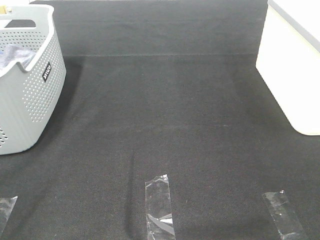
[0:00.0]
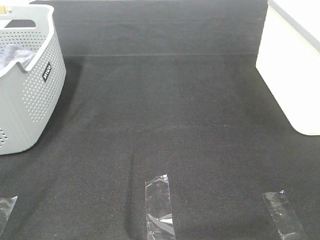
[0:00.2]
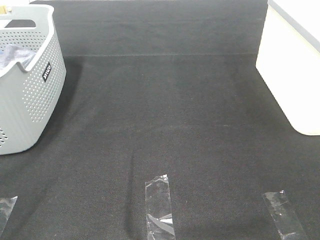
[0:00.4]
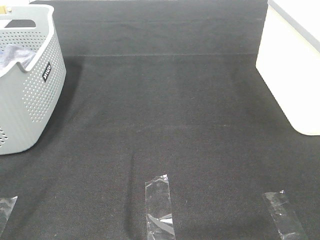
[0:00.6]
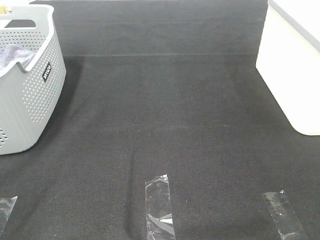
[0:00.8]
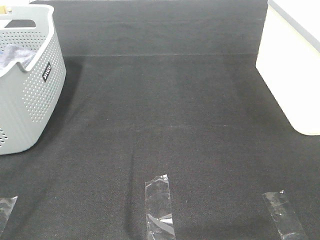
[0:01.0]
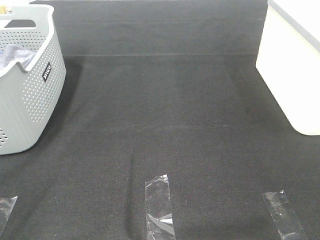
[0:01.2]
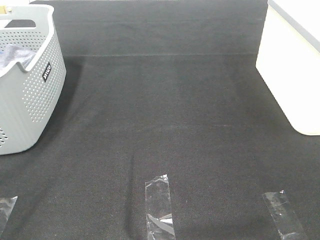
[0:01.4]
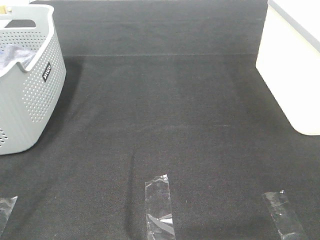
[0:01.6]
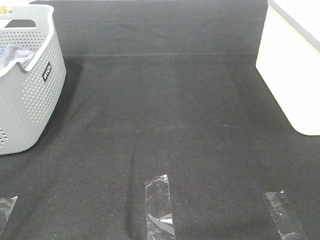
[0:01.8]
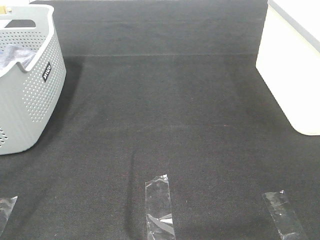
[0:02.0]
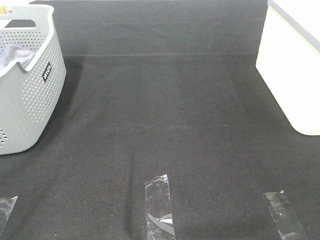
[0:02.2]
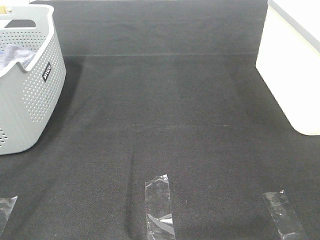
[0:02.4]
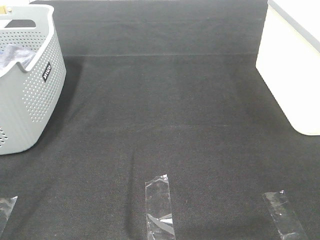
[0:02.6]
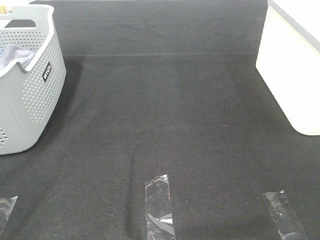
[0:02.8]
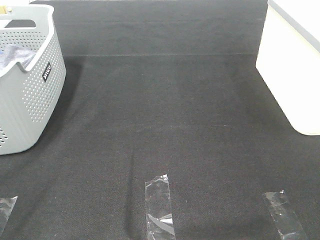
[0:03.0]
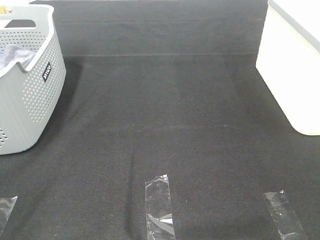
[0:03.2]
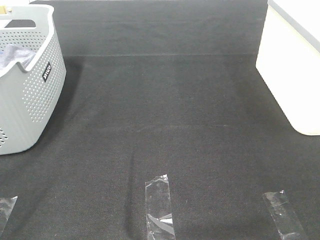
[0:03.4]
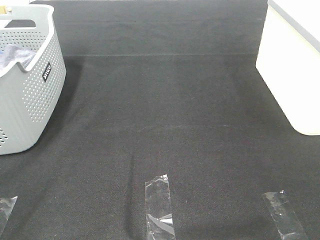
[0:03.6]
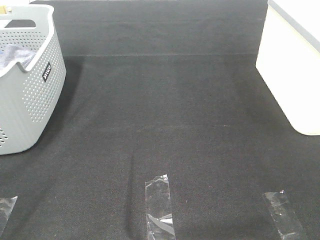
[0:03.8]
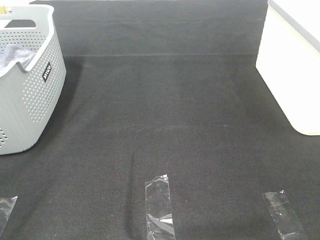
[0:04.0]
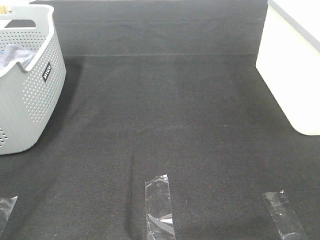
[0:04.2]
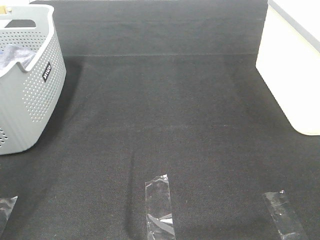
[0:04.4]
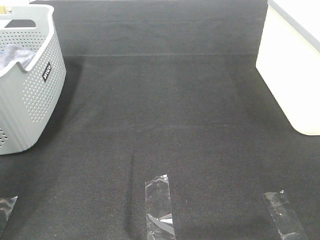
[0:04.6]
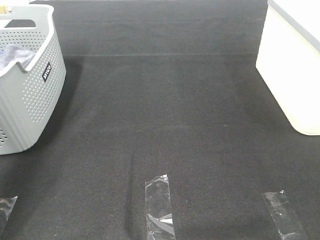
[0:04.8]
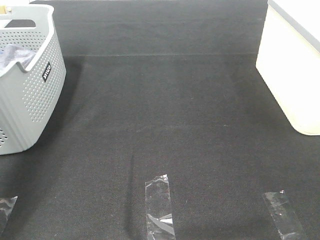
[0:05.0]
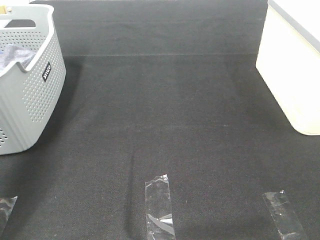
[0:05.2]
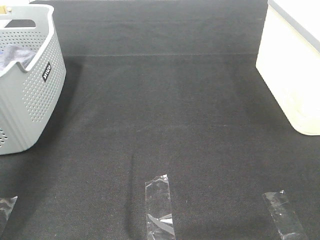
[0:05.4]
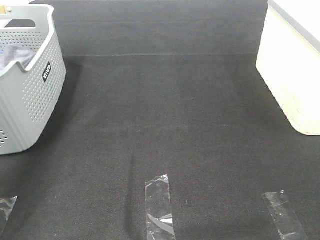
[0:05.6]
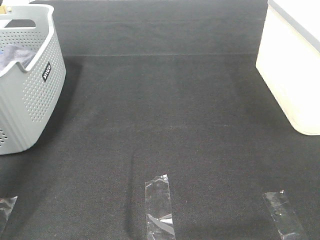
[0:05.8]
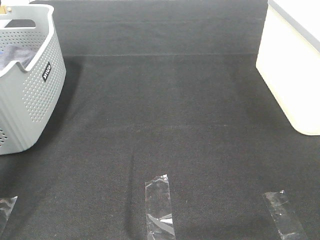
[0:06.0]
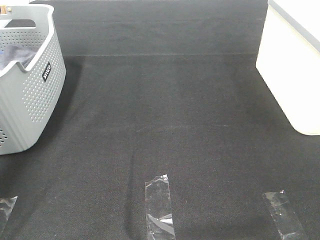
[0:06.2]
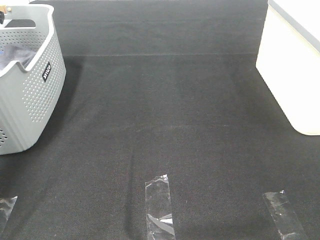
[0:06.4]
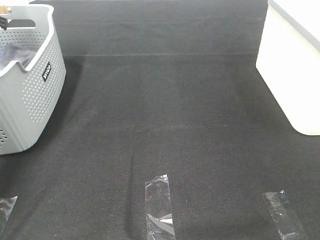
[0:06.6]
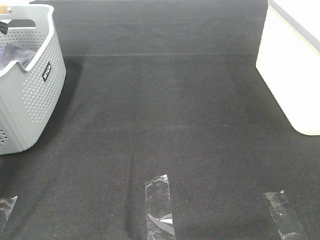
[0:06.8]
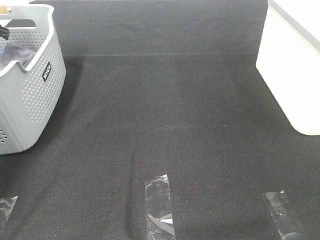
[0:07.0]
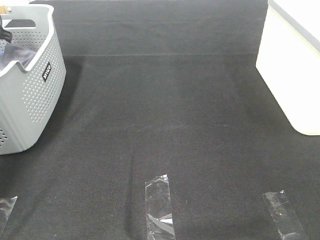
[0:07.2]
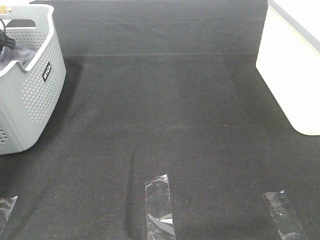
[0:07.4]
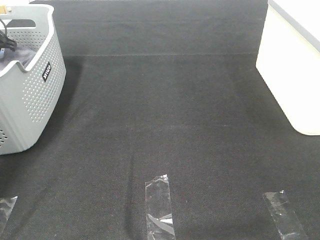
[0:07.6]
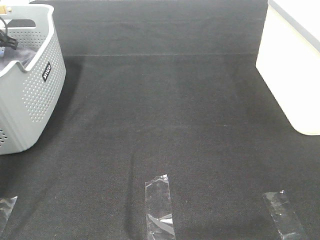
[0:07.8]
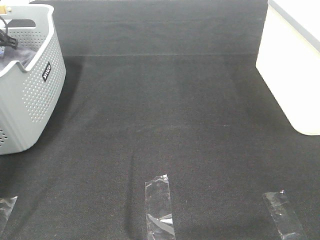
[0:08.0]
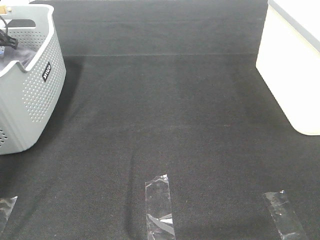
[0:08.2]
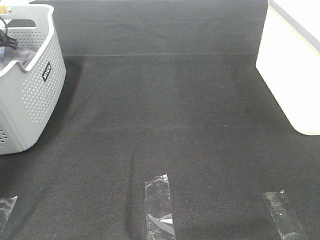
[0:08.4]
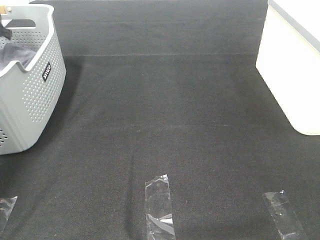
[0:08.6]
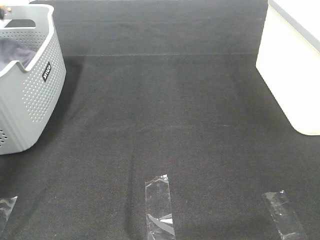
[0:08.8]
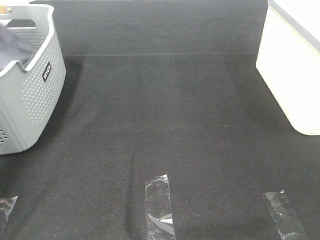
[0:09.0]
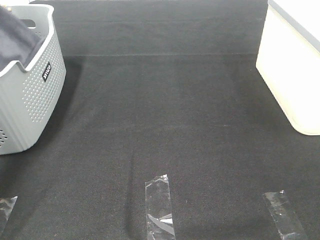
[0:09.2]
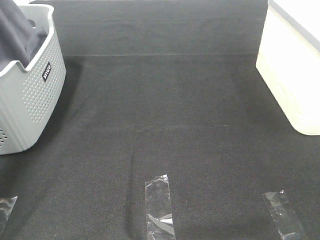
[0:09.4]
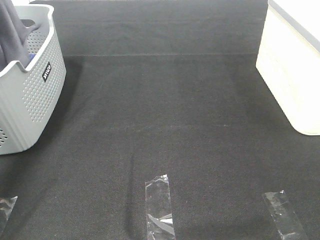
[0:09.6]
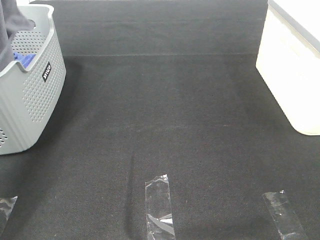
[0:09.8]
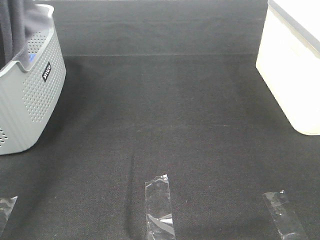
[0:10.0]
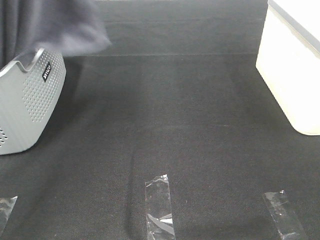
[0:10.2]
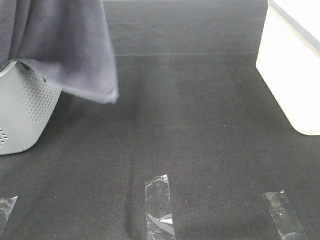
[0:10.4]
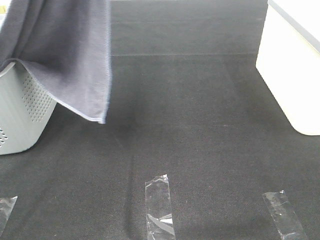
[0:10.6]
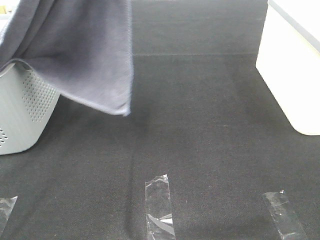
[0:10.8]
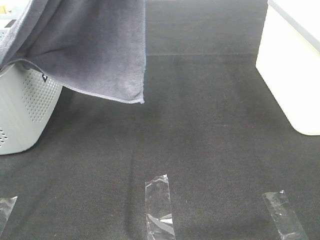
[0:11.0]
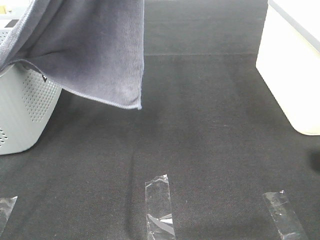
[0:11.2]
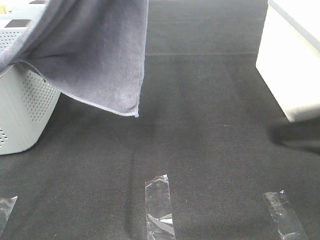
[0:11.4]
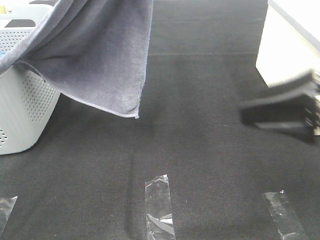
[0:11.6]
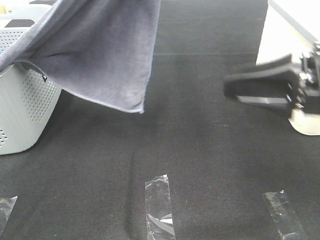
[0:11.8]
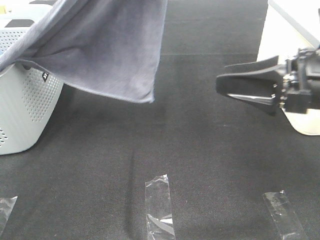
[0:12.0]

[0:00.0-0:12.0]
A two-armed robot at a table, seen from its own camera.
Task of the whole recording: Remove the towel and place it.
0:00.0 to 0:03.0: Both grippers stay about where they are.
0:03.0 to 0:04.4: The left gripper goes about 10 cm forward.
0:04.4 to 0:06.0: The left gripper travels forward by some 40 cm.
0:06.0 to 0:07.6: The left gripper shifts about 10 cm downward.
0:07.6 to 0:09.0: The left gripper travels upward by roughly 15 cm, and closes.
0:09.0 to 0:10.4: The left gripper heads to the right, upward and backward, covering about 35 cm.
0:10.4 to 0:12.0: The left gripper travels to the right by roughly 10 cm. Meanwhile the right gripper moves forward, approximately 25 cm.

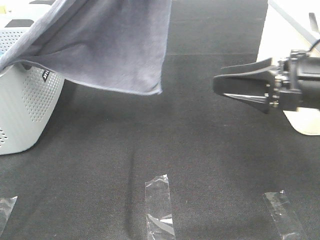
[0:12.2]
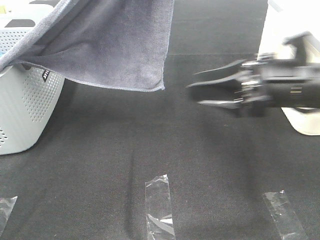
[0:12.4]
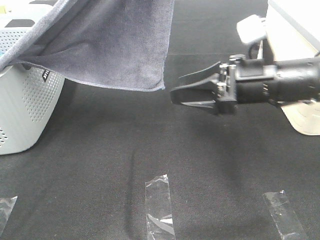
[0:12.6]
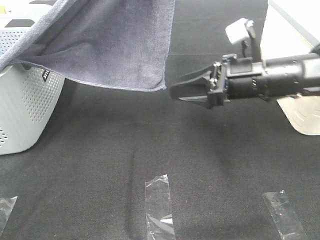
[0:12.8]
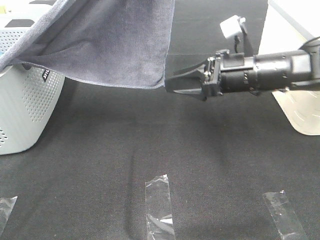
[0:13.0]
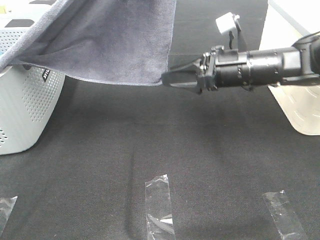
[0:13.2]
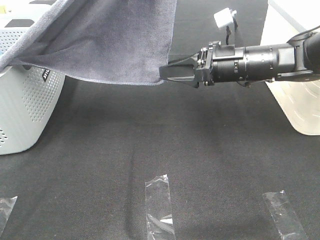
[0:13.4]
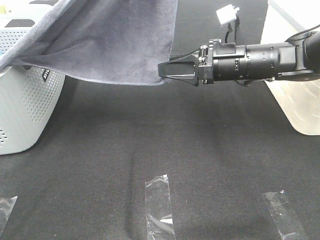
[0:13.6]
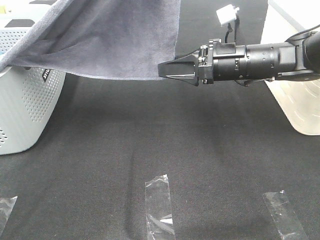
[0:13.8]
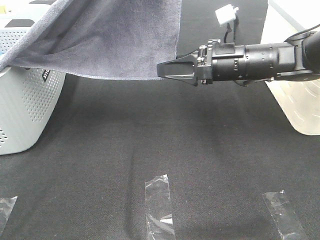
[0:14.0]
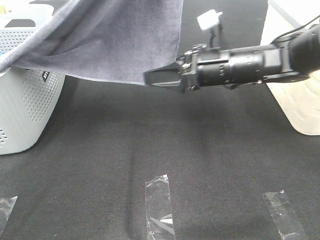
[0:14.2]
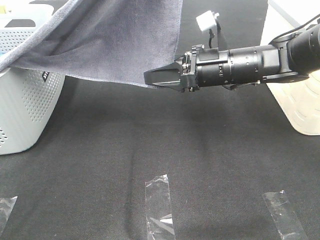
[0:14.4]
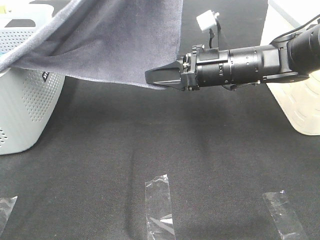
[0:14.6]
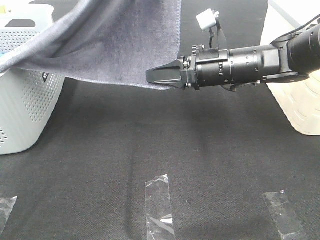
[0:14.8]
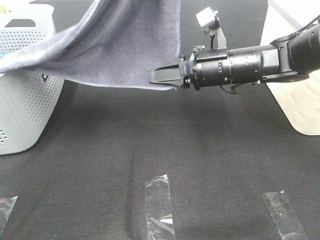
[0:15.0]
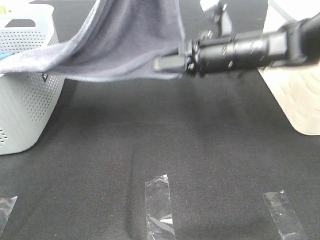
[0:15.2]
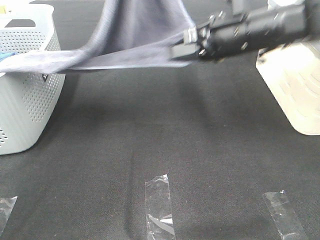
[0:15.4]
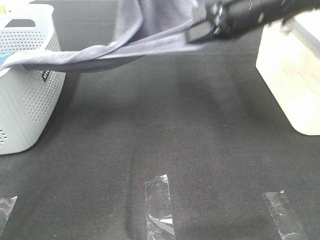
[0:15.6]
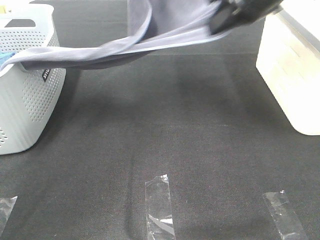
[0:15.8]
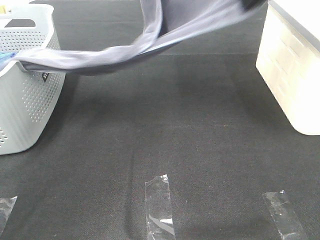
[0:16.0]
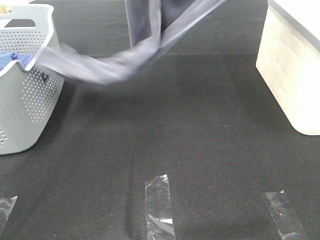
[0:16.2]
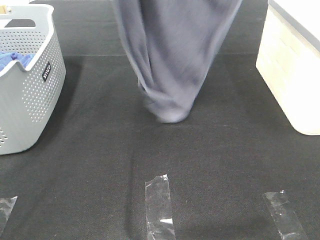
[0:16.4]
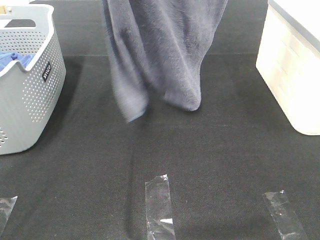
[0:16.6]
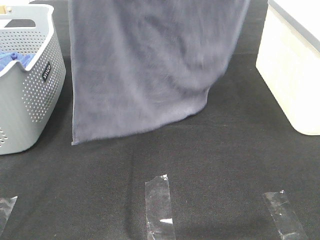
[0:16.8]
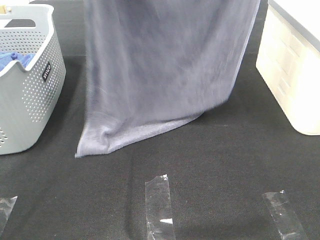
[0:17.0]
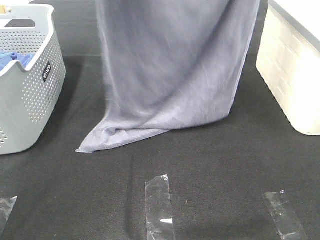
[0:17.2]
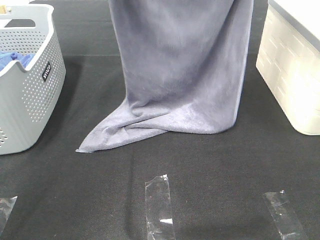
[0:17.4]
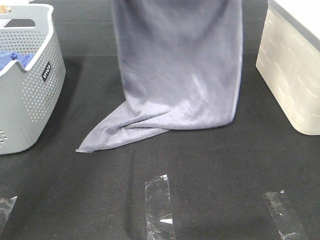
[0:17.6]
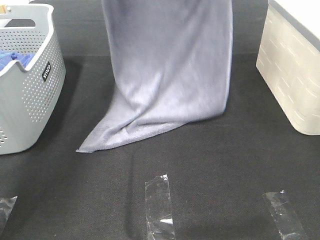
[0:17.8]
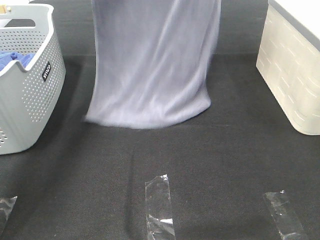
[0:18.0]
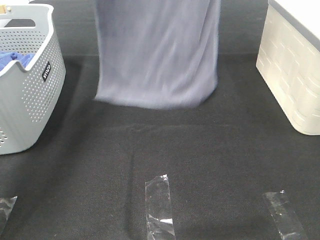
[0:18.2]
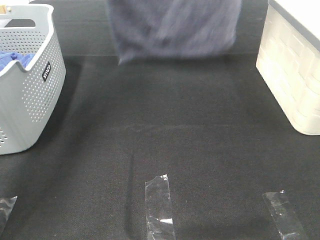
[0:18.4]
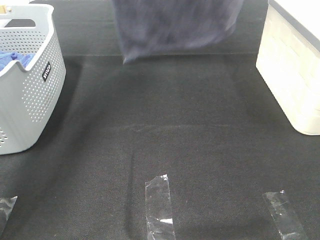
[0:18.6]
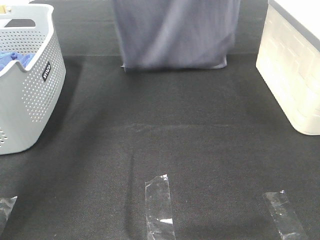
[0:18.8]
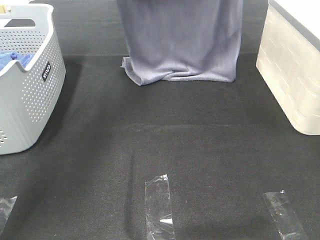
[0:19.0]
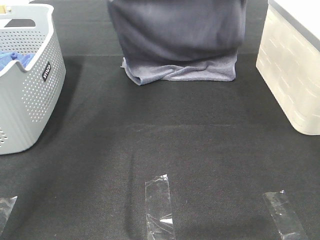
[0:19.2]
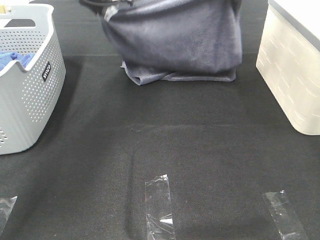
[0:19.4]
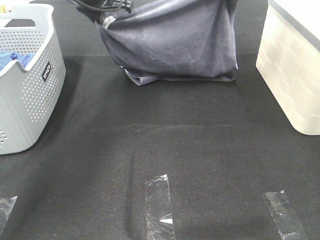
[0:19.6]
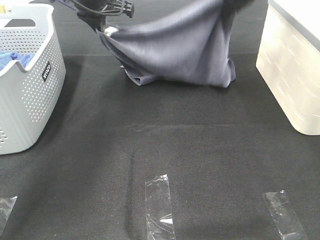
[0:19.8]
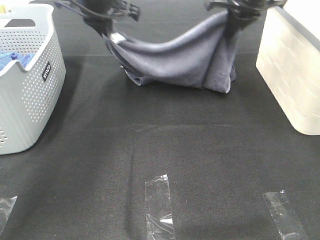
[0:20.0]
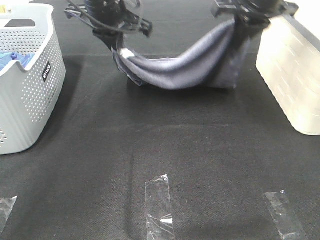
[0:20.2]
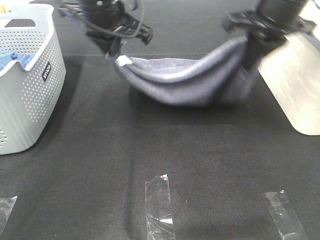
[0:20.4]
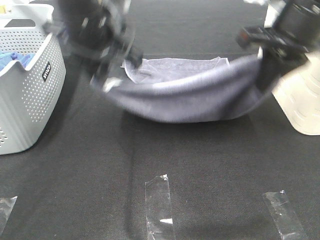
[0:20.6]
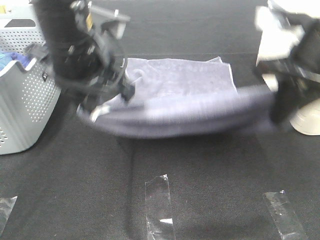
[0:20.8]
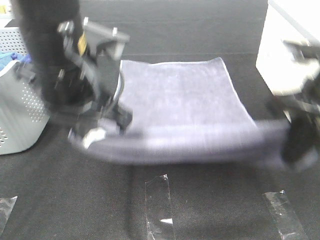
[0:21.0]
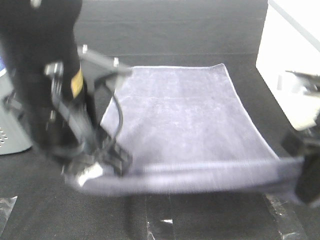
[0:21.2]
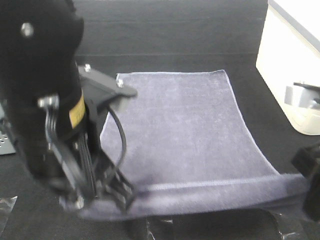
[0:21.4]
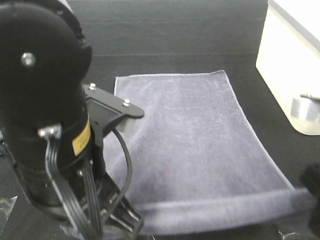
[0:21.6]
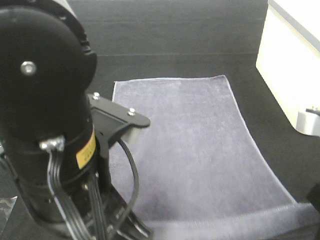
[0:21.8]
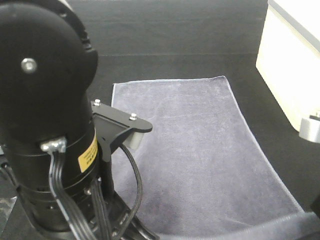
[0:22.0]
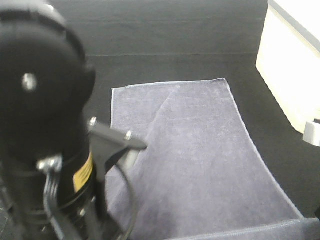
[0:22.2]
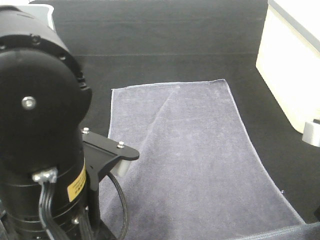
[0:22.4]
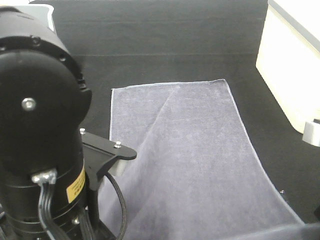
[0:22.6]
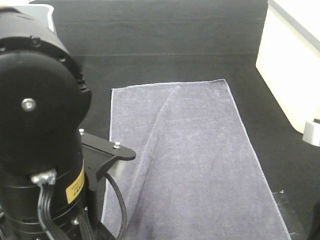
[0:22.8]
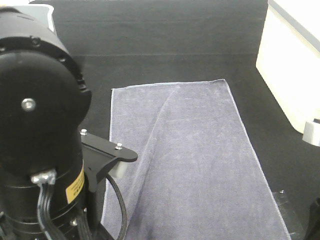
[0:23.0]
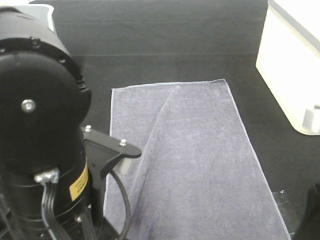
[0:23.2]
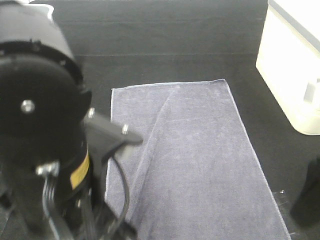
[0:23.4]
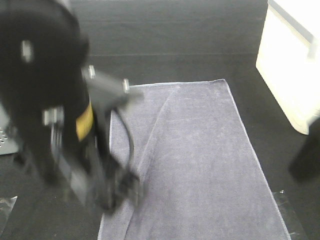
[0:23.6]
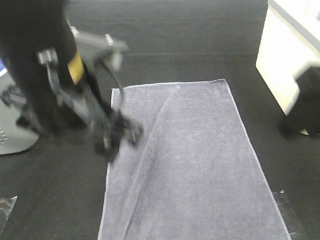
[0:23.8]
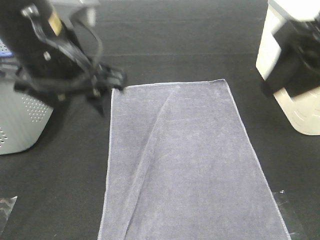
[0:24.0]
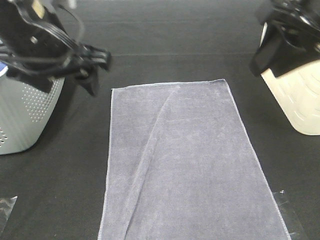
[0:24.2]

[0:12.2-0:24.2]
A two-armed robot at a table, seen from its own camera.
Task of the whole recording: Remove the towel and place it.
Step, 0:13.6 to 0:18.2: Left hand: spread the grey towel flat on the table.
Step, 0:13.6 to 0:18.2: Right hand: spread the grey towel flat on the table.
0:12.2 to 0:13.8: The right gripper is displaced forward and to the left by roughly 15 cm.
0:13.8 to 0:15.2: The right gripper closes.
0:15.2 to 0:16.6: The right gripper heads upward, covering roughly 35 cm, while the left gripper shifts some 15 cm upward and to the left.
0:16.6 to 0:18.2: The left gripper is displaced forward and downward by approximately 20 cm; the right gripper is displaced forward by some 15 cm, and reaches approximately 15 cm downward, then returns.
0:18.2 to 0:19.8: Both grippers travel together downward, some 20 cm.
0:19.8 to 0:21.2: The two grippers go some 30 cm backward.
0:21.2 to 0:22.6: Both grippers travel together backward, about 5 cm. The left gripper opens. Meanwhile the right gripper opens.
0:22.6 to 0:24.2: The left gripper heads forward and to the left, covering some 20 cm, and opens its fingers. Meanwhile the right gripper shifts some 20 cm forward and upward, and opens and closes again.
